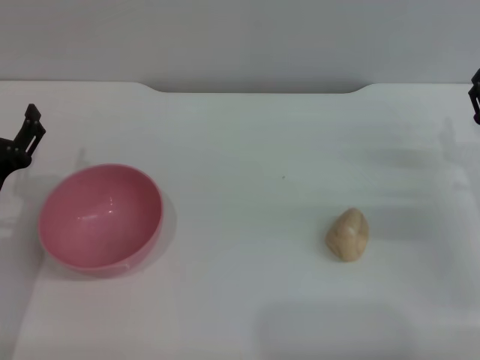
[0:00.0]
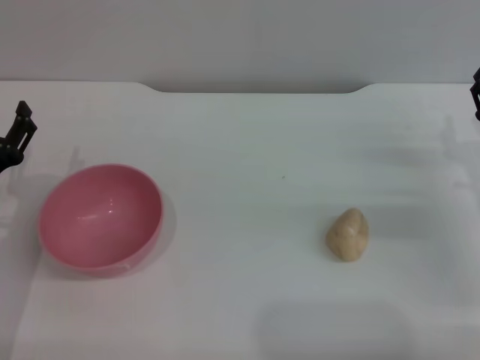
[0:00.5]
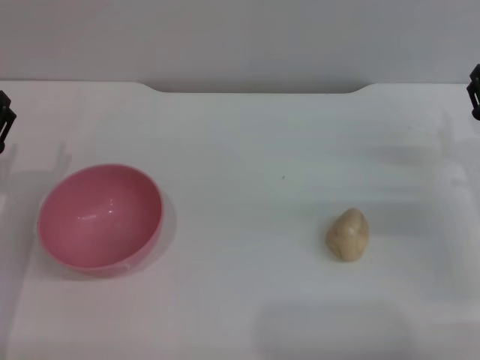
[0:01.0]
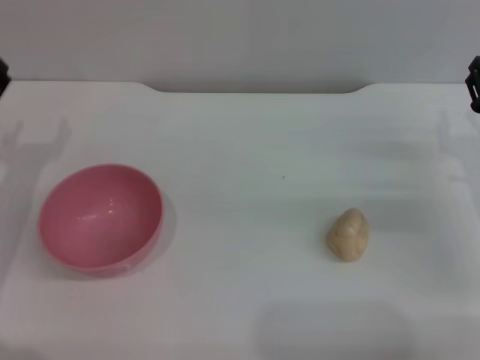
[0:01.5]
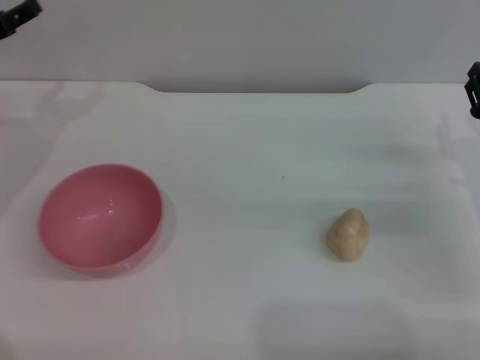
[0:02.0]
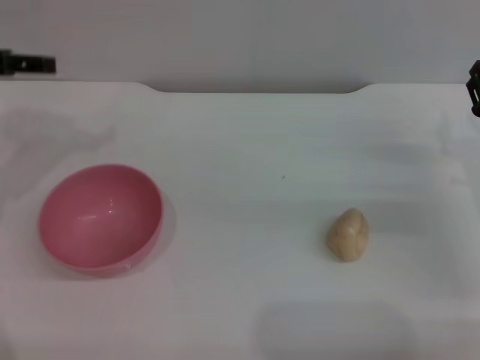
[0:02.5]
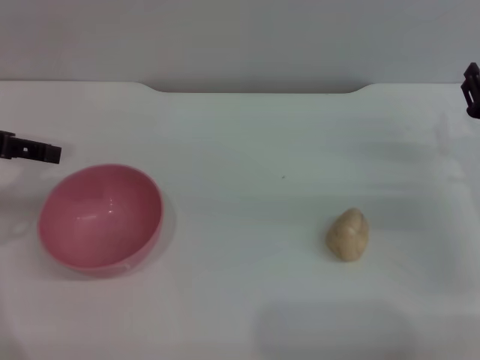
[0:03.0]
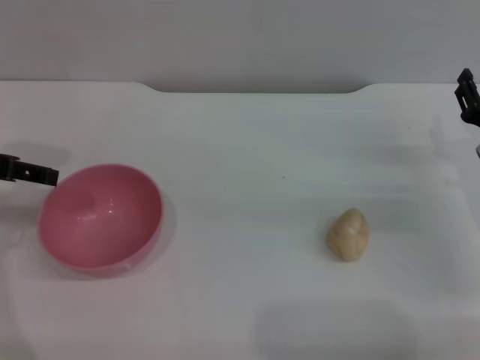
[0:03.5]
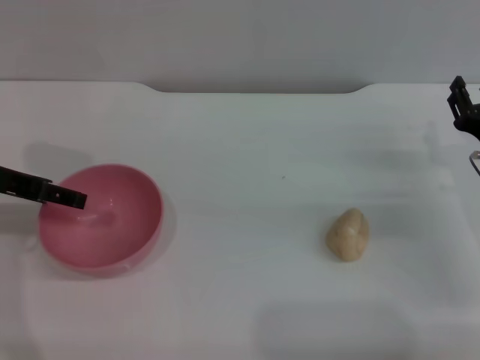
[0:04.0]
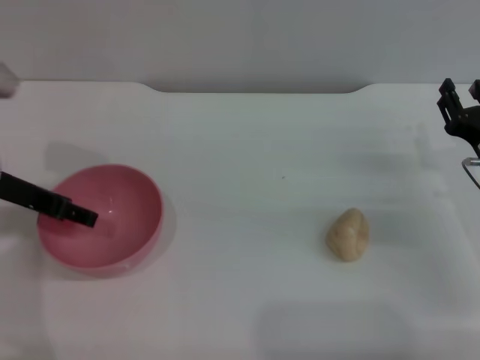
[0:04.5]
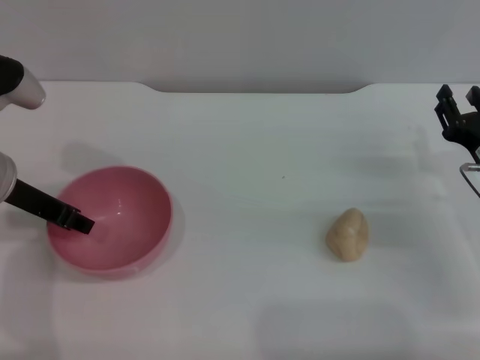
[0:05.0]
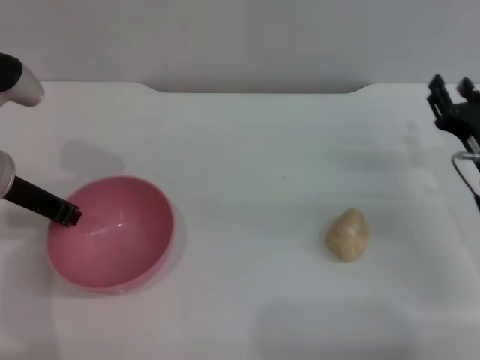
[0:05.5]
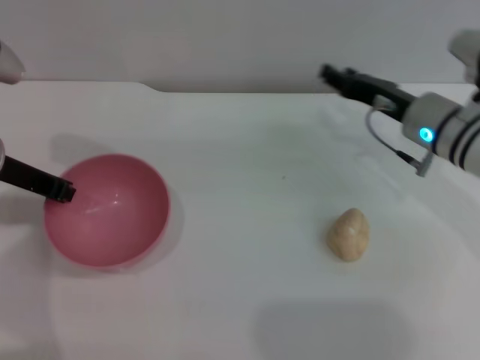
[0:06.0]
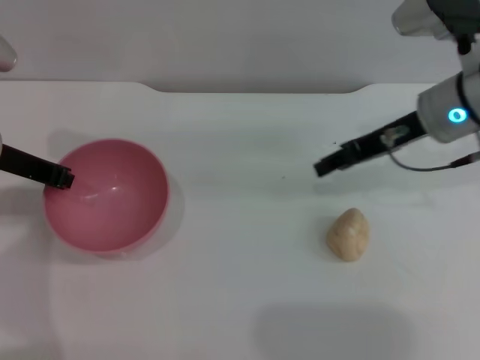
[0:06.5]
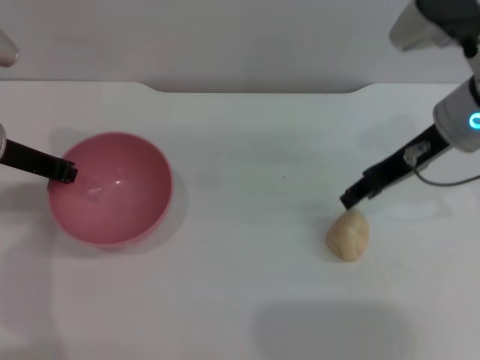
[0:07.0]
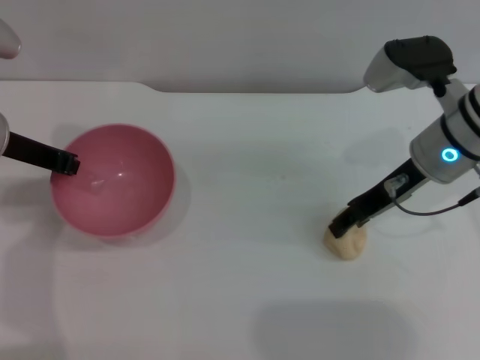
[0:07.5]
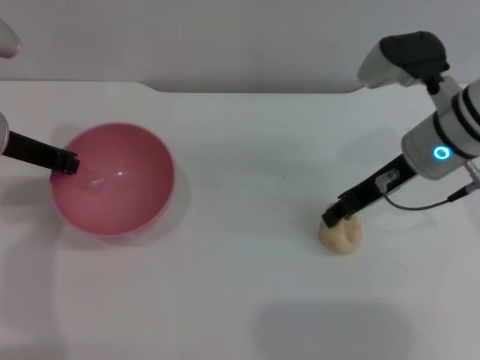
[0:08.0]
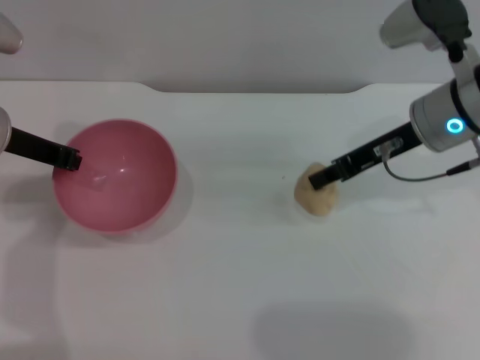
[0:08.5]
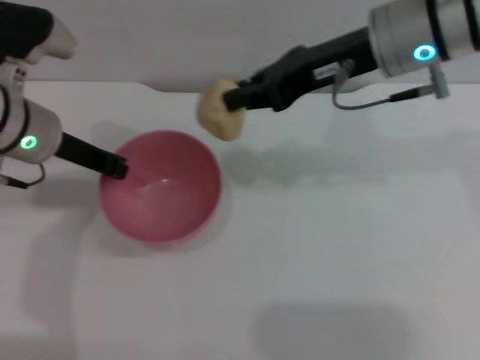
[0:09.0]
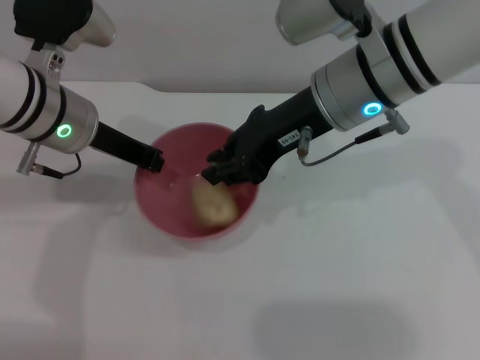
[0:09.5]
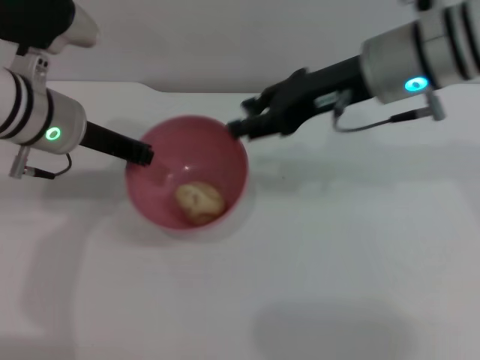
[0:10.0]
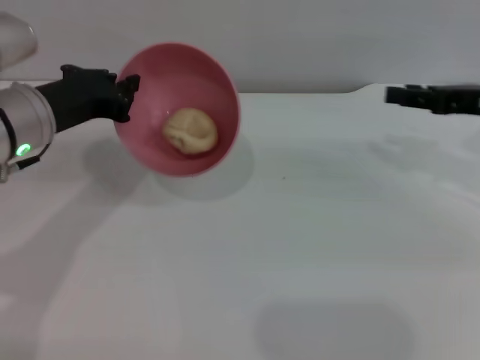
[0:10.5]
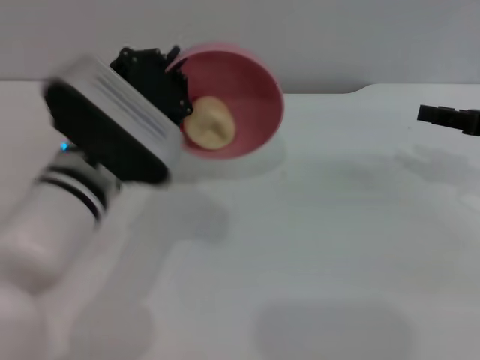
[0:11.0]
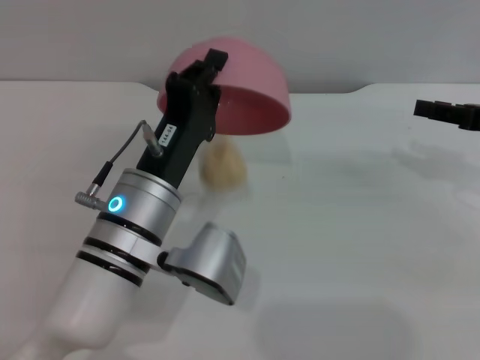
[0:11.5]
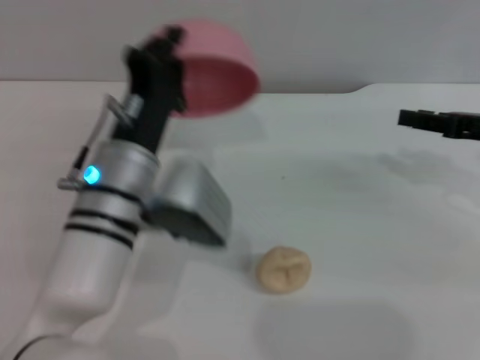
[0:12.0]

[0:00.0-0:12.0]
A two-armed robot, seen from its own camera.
Task of the whole recording: put the egg yolk pastry into the pink bowl and pour it out repeatedly.
Step, 0:00.0 to 0:06.0: Pick up the bowl with the left gripper.
Step, 0:07.0 to 0:08.5: Pick up the egg yolk pastry with the right gripper.
Step, 0:09.0 to 0:09.5: Place the egg yolk pastry into the bowl.
Step, 0:10.0 to 0:11.5: Pour the egg yolk pastry out of bowl.
0:00.0 to 0:02.0: The left gripper heads forward and upward, covering some 20 cm.
0:02.0 to 0:04.0: The left gripper is displaced backward by approximately 5 cm.
0:04.0 to 0:06.0: The left gripper closes its fingers. The right gripper moves forward and to the left, roughly 10 cm.
0:06.0 to 0:08.0: The right gripper heads upward, covering roughly 5 cm.
0:08.0 to 0:10.0: The left gripper travels to the right by roughly 5 cm, while the right gripper travels upward by some 10 cm, and closes, then reopens.
0:10.0 to 0:12.0: The left gripper travels backward, to the right and downward by about 15 cm. Meanwhile the right gripper shifts approximately 20 cm to the right and downward.

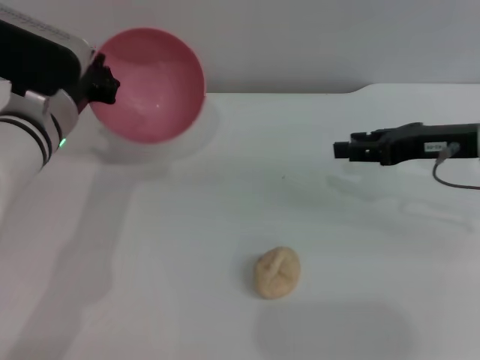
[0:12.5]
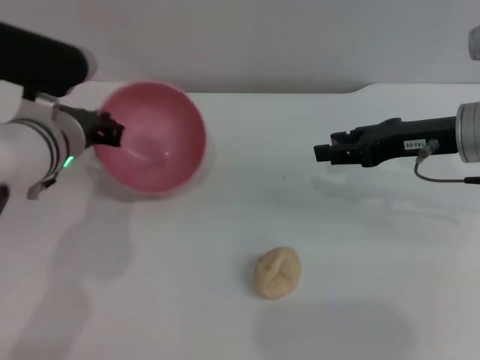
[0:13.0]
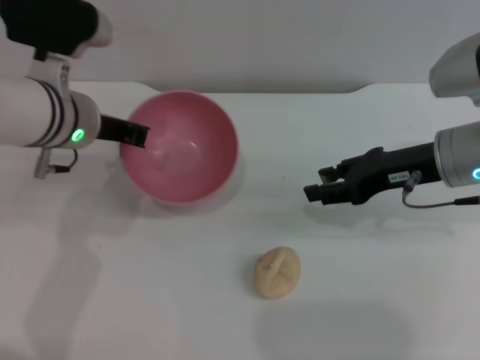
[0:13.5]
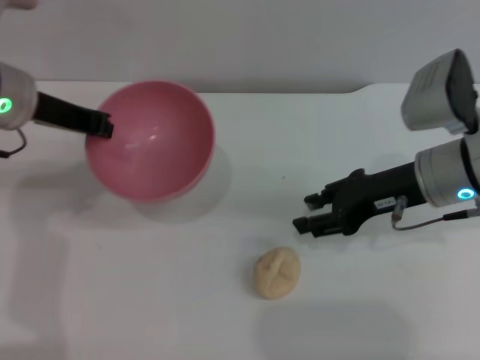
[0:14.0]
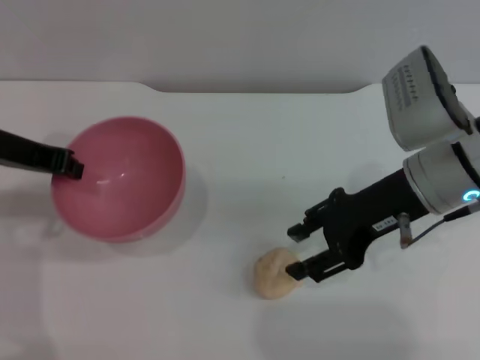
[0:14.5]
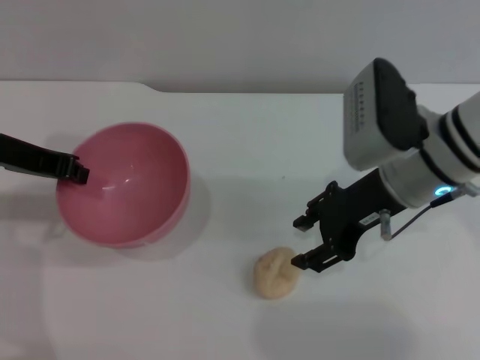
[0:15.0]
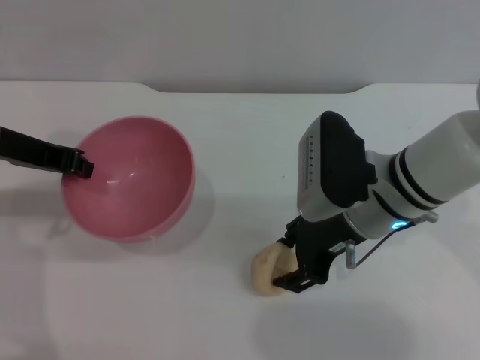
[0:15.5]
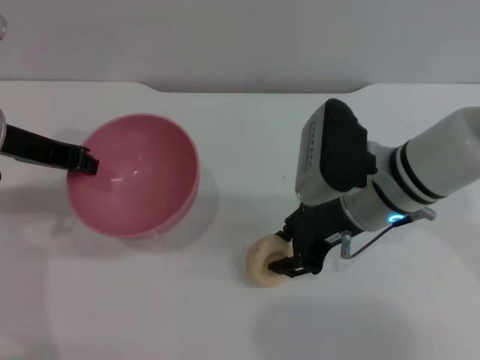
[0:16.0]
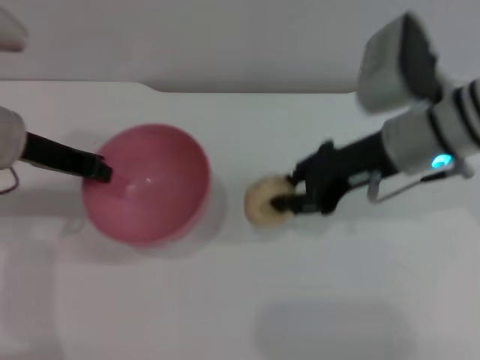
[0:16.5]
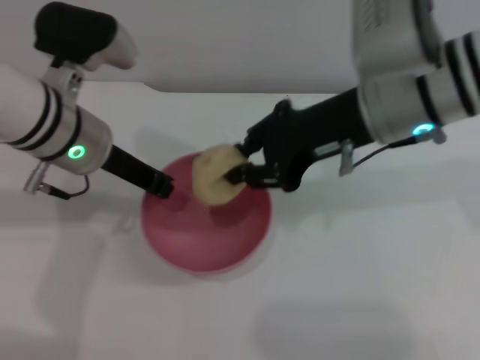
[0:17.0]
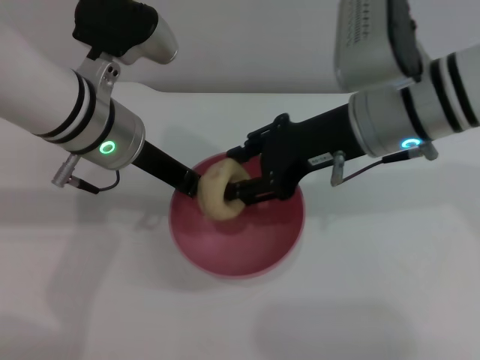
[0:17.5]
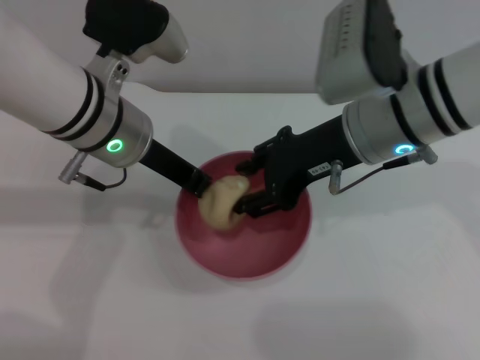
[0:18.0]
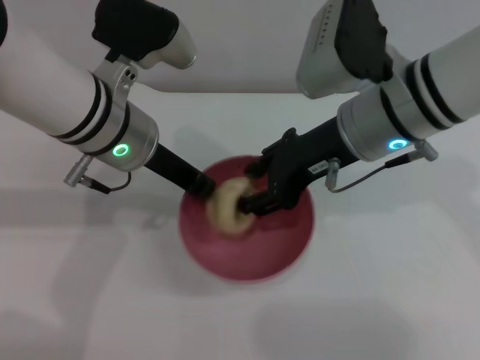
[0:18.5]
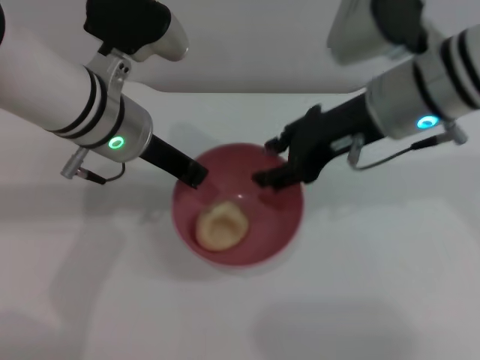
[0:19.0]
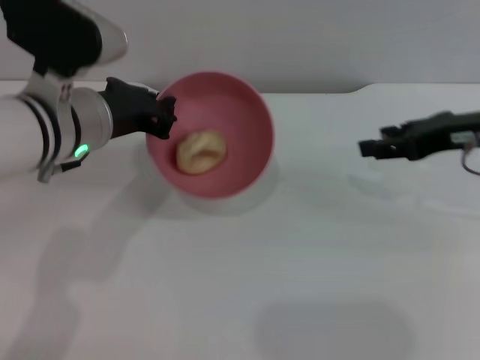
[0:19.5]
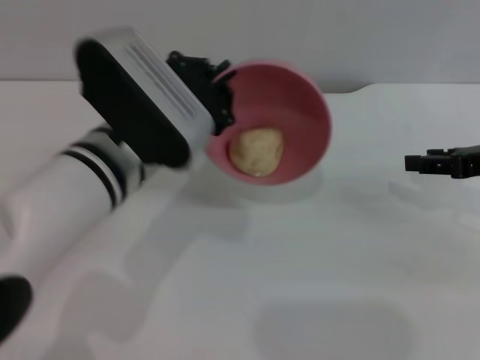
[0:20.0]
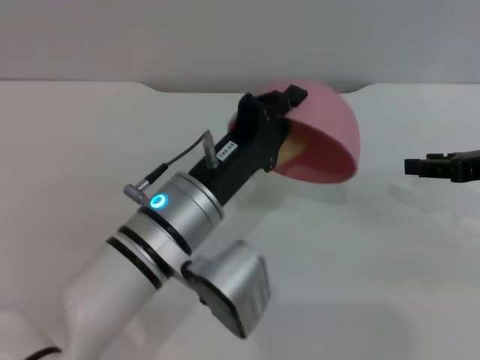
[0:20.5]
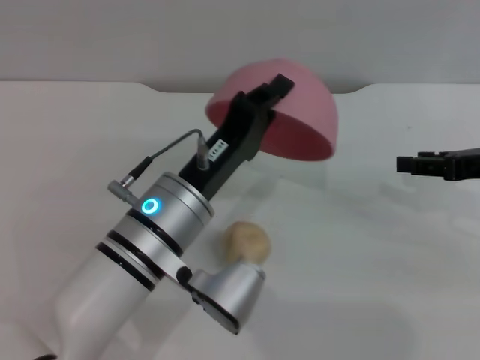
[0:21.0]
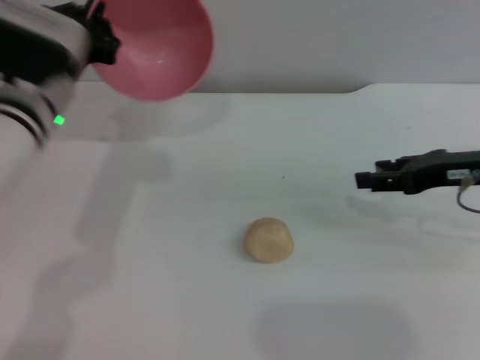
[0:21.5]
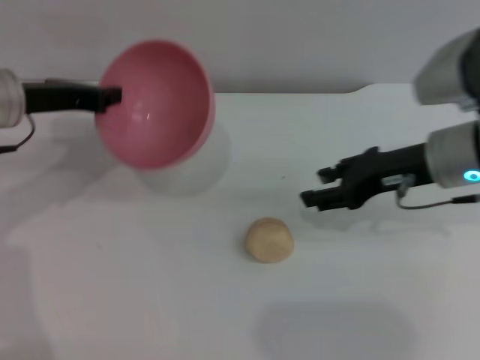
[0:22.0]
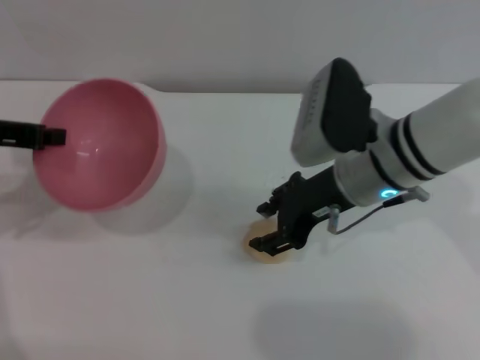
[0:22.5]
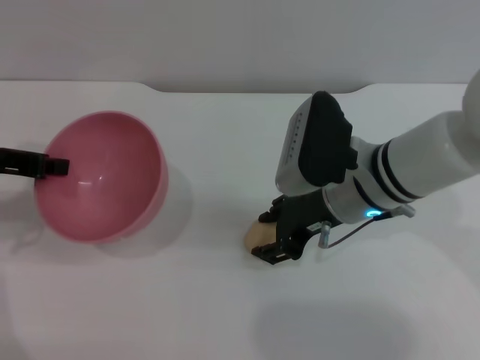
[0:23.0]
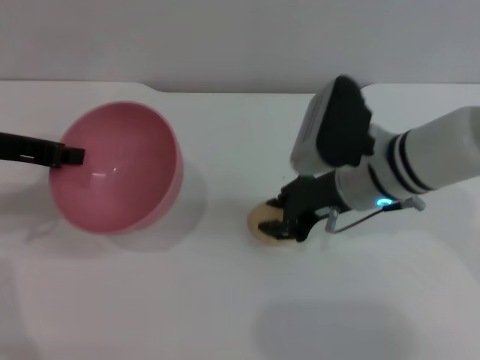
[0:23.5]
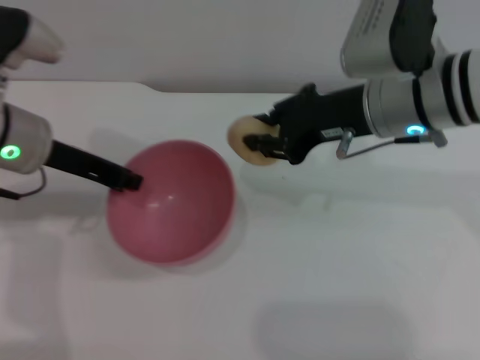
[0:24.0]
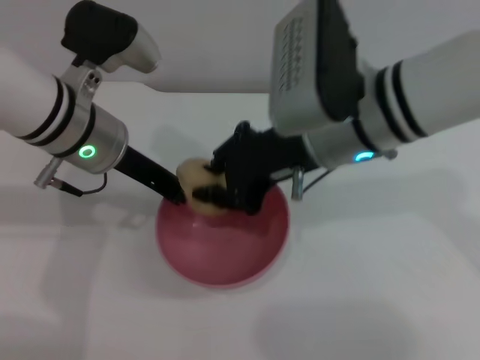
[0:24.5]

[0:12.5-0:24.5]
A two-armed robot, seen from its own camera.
Task of the whole recording: put the egg yolk pastry into the pink bowl and pour it out repeatedly.
Step, 0:12.5 to 0:16.0: Pick up the egg yolk pastry with the right gripper.
Step, 0:16.5 to 0:18.5: Place the egg yolk pastry into the bowl.
Step, 0:19.5 to 0:21.0: Pour the egg yolk pastry out of bowl.
Step, 0:21.5 to 0:23.0: Pick up the egg yolk pastry with the right gripper.
0:12.5 to 0:14.5: The left gripper goes about 10 cm to the left and upward. The right gripper is displaced to the left by roughly 10 cm.
0:14.5 to 0:16.5: The right gripper closes its fingers.
0:16.5 to 0:18.5: The right gripper changes place by approximately 5 cm, and opens its fingers. The left gripper goes roughly 10 cm to the right.
0:18.5 to 0:20.5: The right gripper shifts roughly 20 cm to the right, while the left gripper is displaced backward and downward by some 10 cm.
0:20.5 to 0:22.5: Both grippers move to the left, roughly 20 cm.
0:22.5 to 0:24.5: The left gripper heads to the right, covering approximately 15 cm. Meanwhile the right gripper goes roughly 5 cm upward, and closes its fingers.

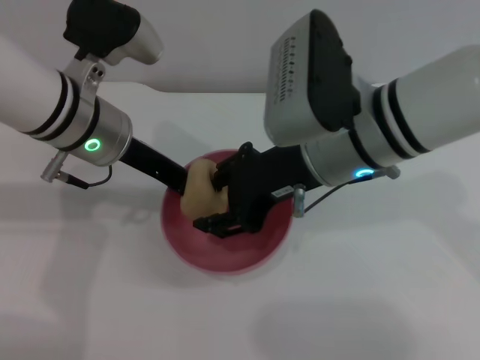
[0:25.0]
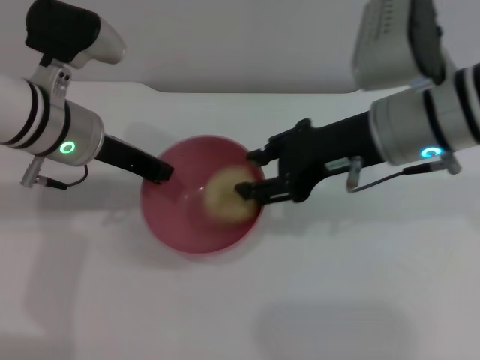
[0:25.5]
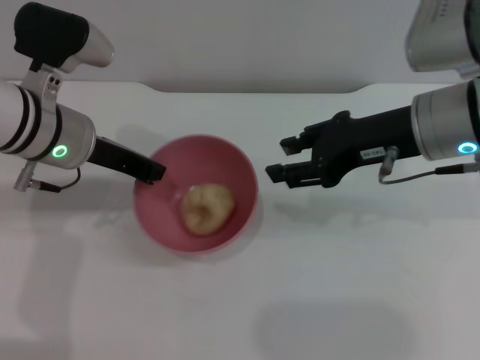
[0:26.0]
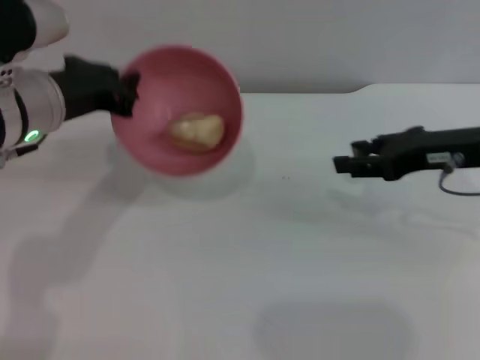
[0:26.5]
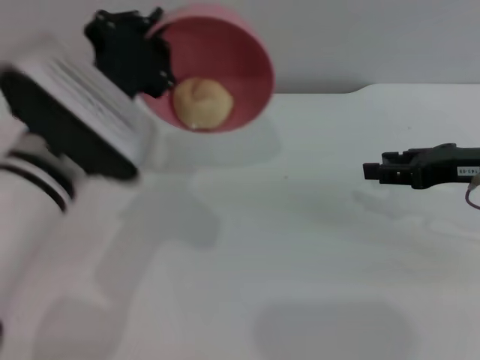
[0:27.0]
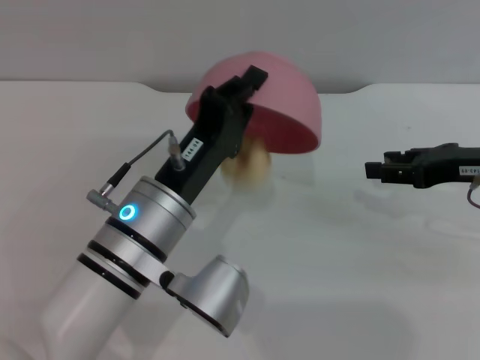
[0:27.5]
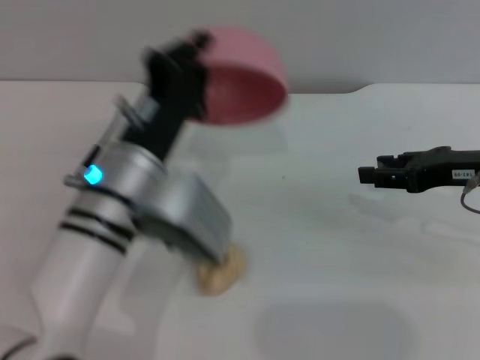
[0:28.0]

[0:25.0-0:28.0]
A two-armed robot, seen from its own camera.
Task of the whole recording: put the egg yolk pastry into the pink bowl and pour it out repeatedly.
0:25.0 to 0:26.5: The left gripper ends up approximately 5 cm from where it was. Meanwhile the right gripper shifts approximately 15 cm to the right.
0:26.5 to 0:28.0: The left gripper goes roughly 15 cm to the right, downward and backward.
